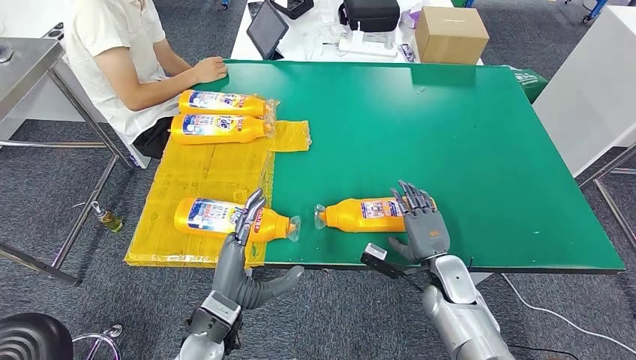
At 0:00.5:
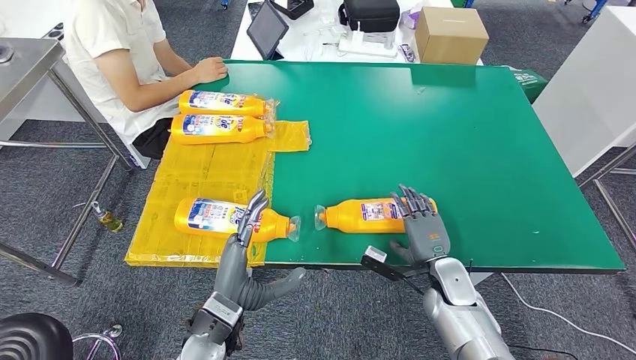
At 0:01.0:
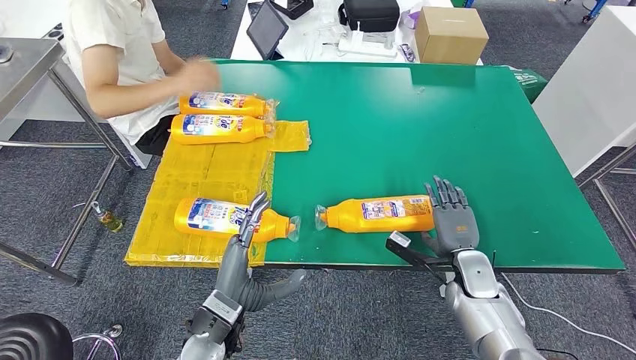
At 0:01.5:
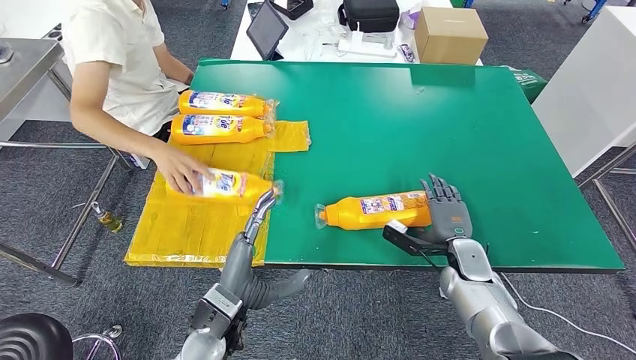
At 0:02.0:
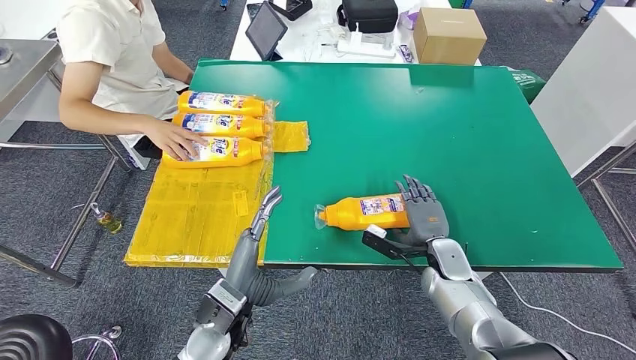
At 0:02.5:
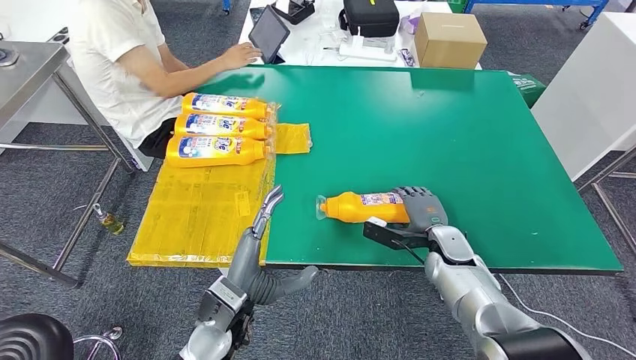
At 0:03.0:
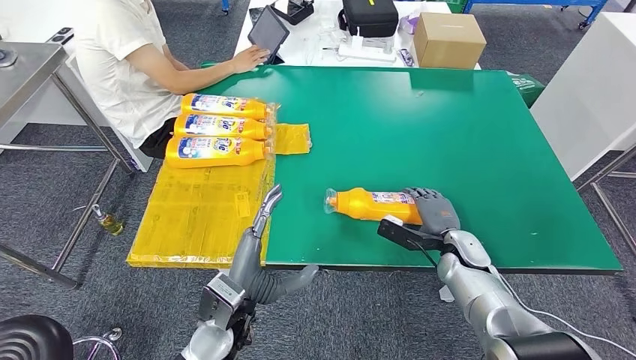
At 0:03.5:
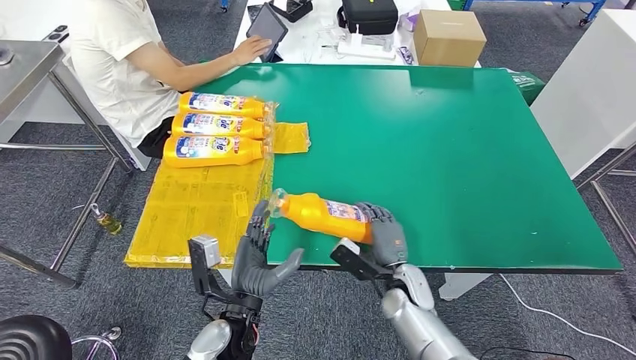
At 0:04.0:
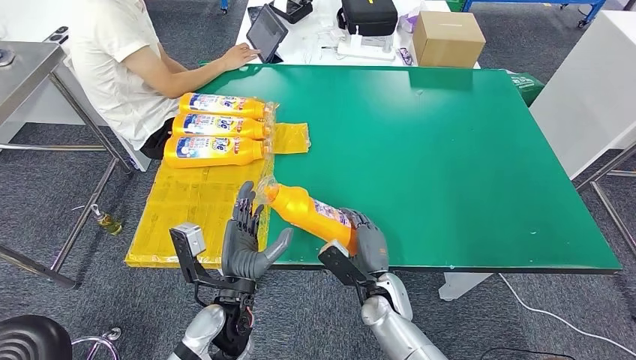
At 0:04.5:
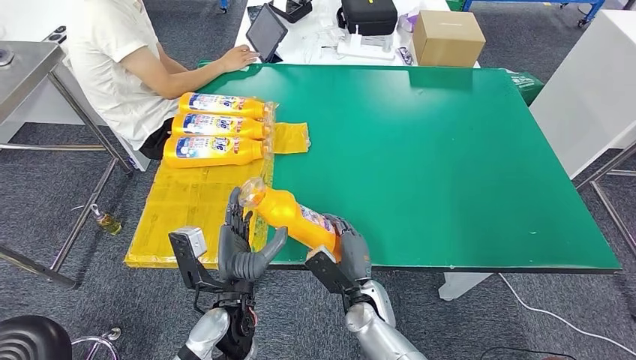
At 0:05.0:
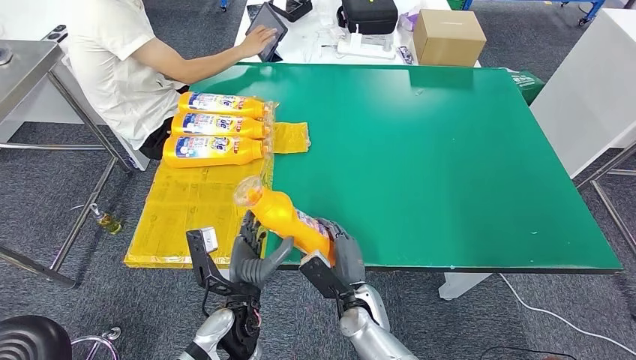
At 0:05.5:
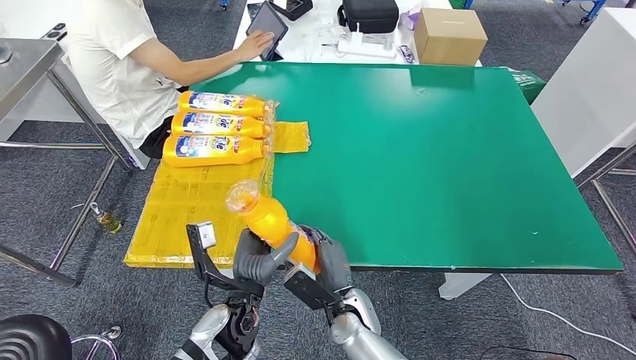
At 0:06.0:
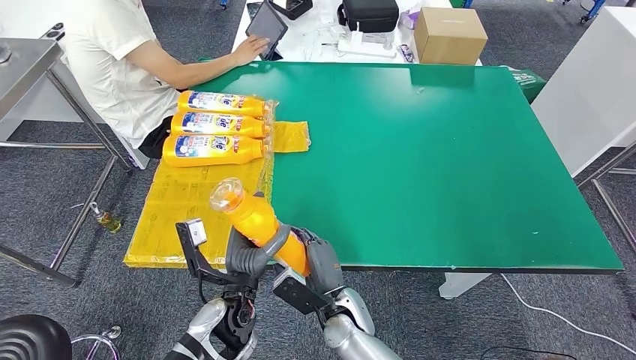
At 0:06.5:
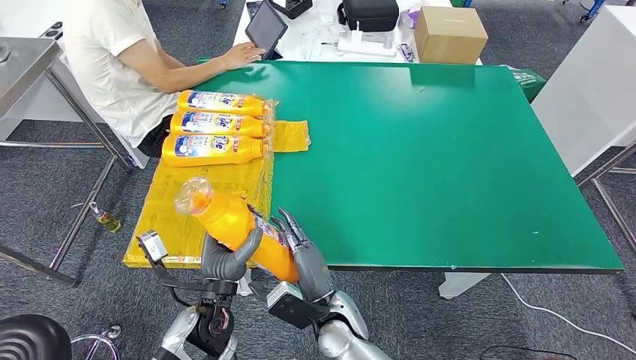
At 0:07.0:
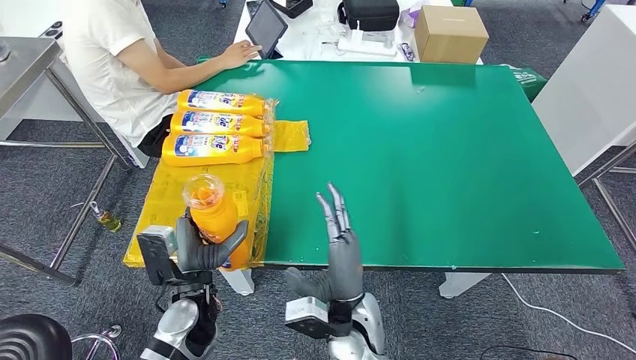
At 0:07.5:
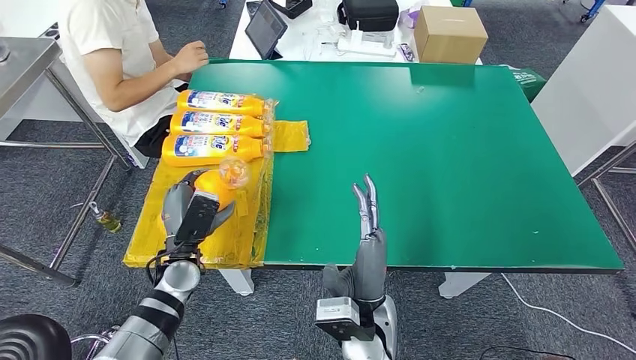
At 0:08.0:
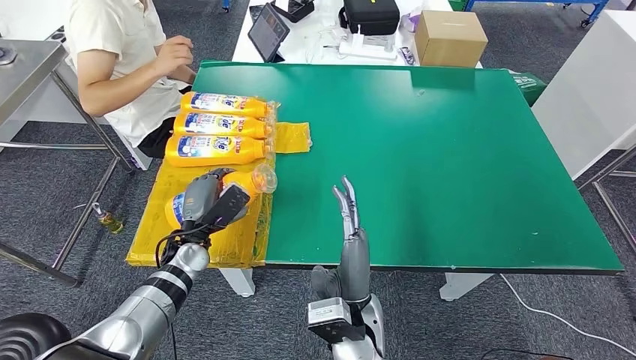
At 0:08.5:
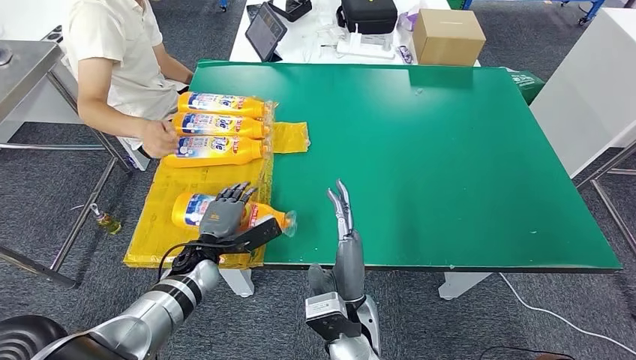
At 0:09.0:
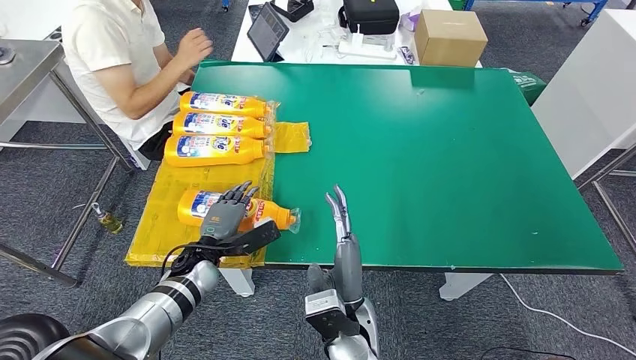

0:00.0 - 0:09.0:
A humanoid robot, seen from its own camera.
Step, 0:00.0 - 0:05.5: Pick up the fast-moving consumer goods bottle from the table.
Step, 0:06.5 - 0:09.0: Flip the fast-moving consumer goods bottle to the front side.
0:00.0 - 0:02.0: There are only small adjustments of the hands.

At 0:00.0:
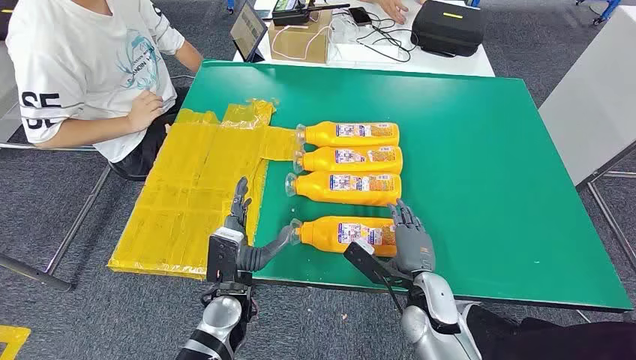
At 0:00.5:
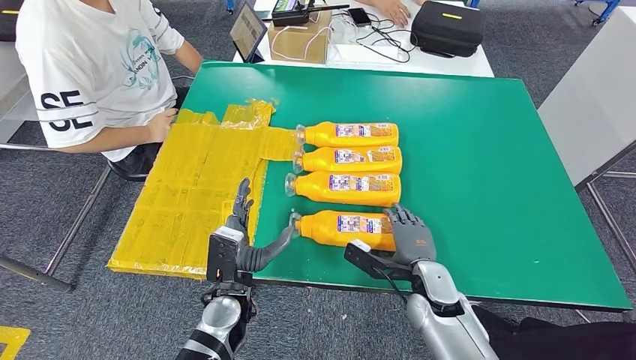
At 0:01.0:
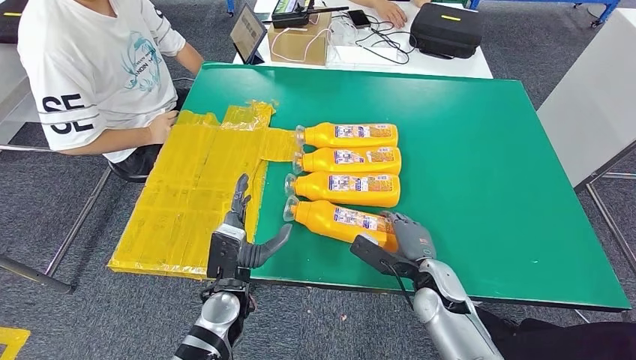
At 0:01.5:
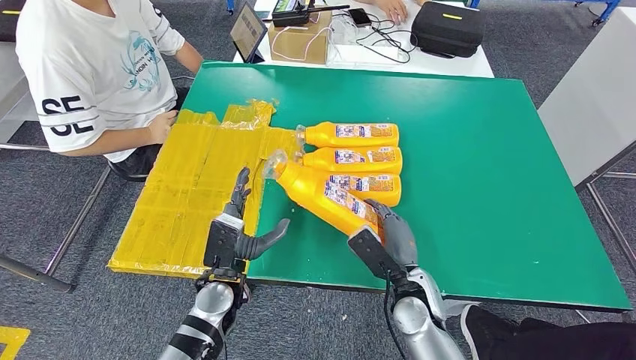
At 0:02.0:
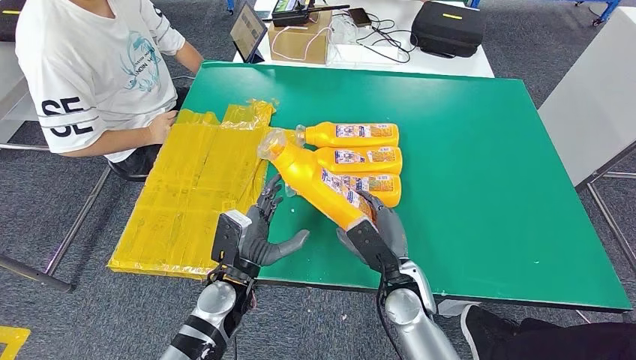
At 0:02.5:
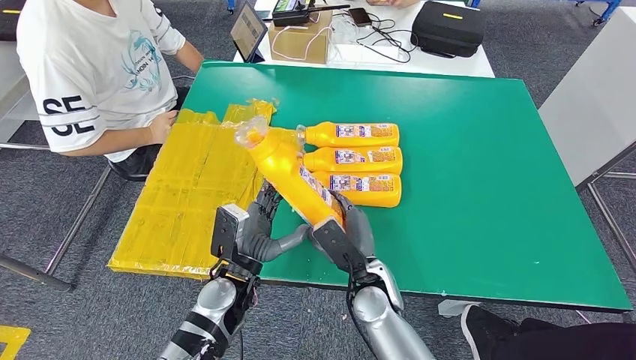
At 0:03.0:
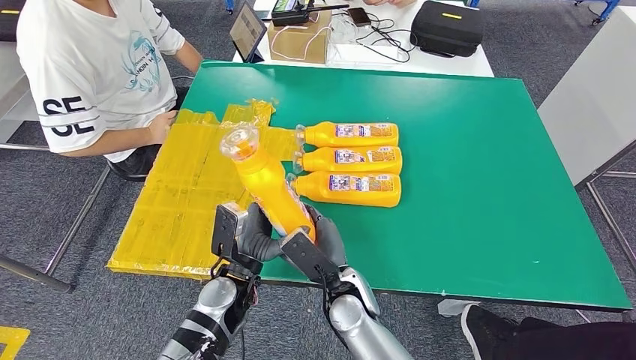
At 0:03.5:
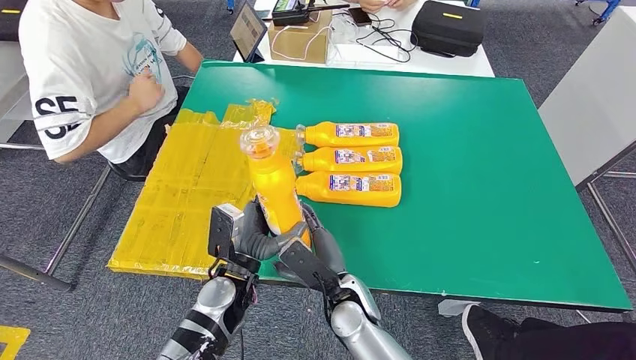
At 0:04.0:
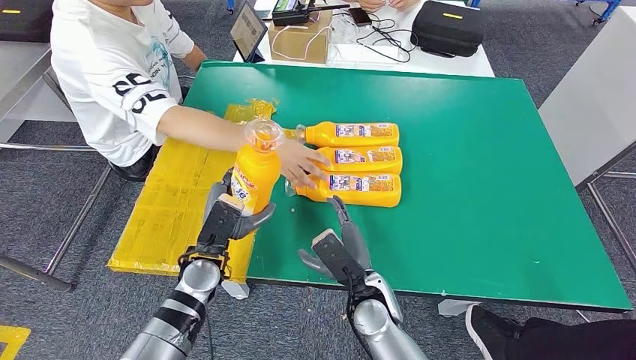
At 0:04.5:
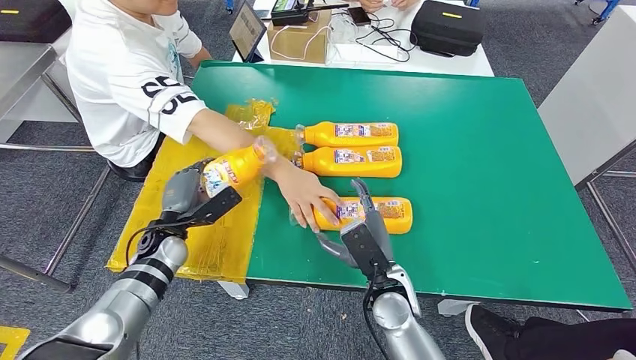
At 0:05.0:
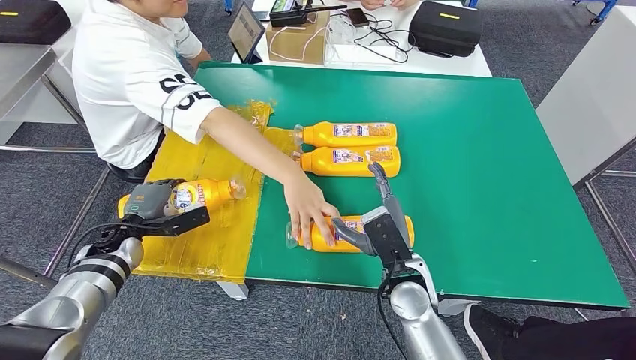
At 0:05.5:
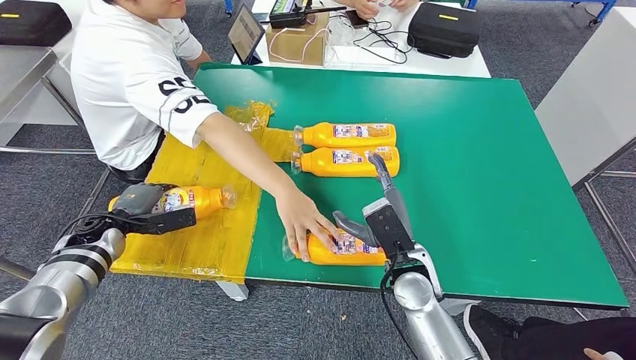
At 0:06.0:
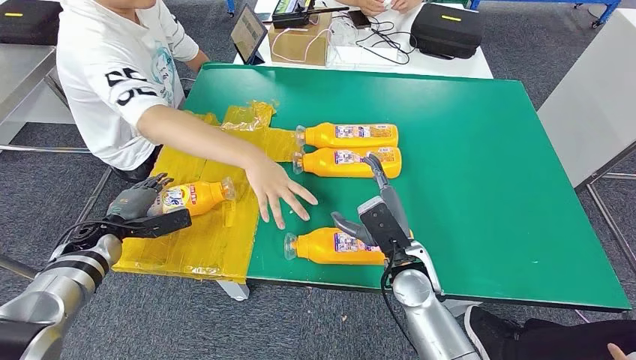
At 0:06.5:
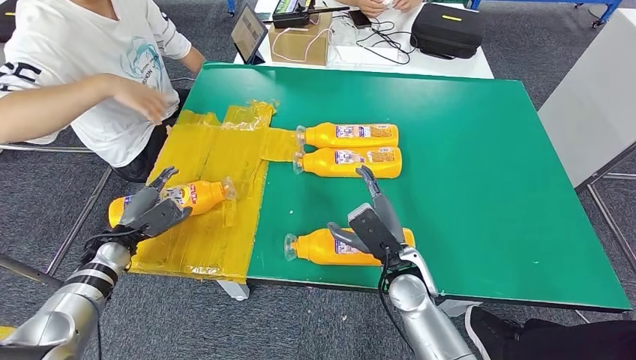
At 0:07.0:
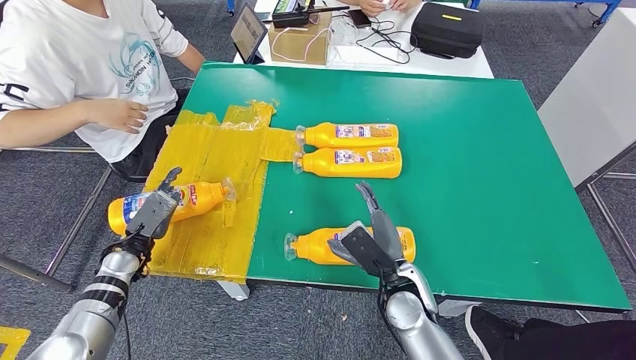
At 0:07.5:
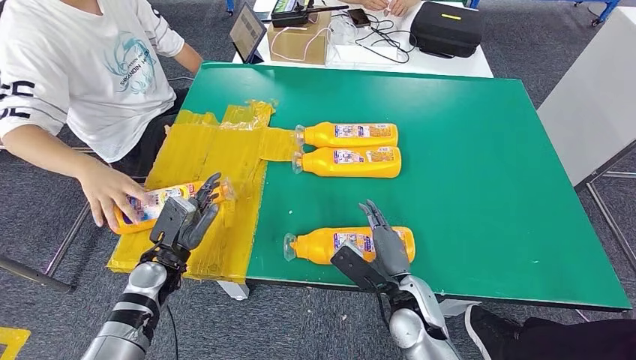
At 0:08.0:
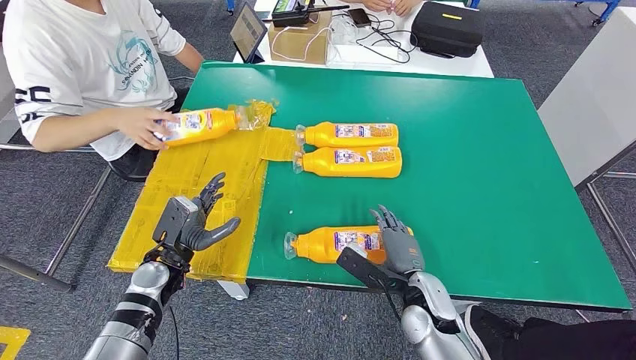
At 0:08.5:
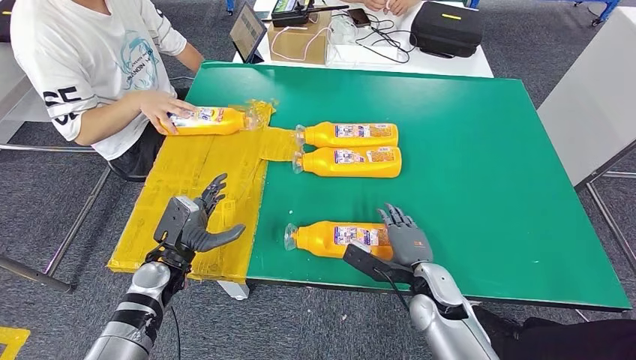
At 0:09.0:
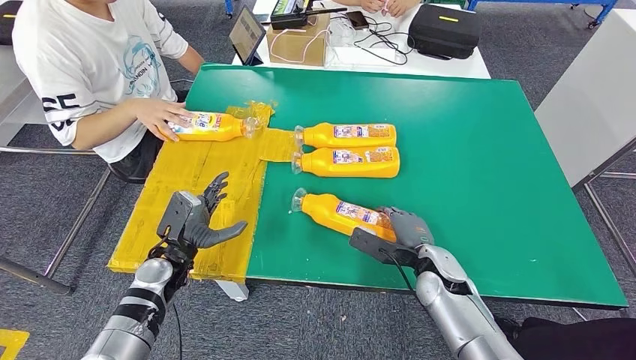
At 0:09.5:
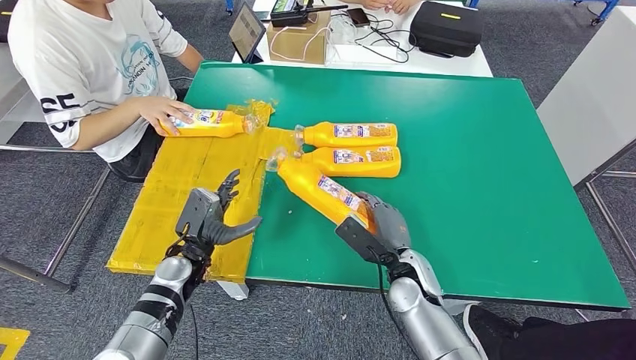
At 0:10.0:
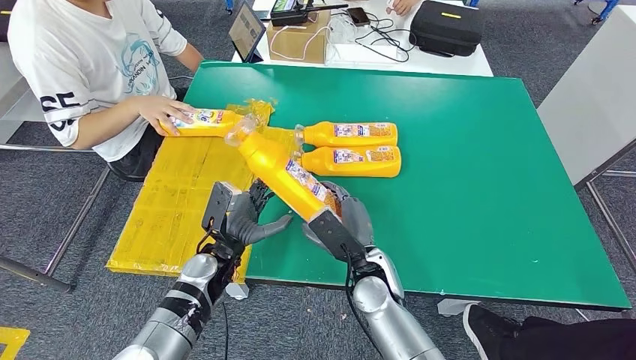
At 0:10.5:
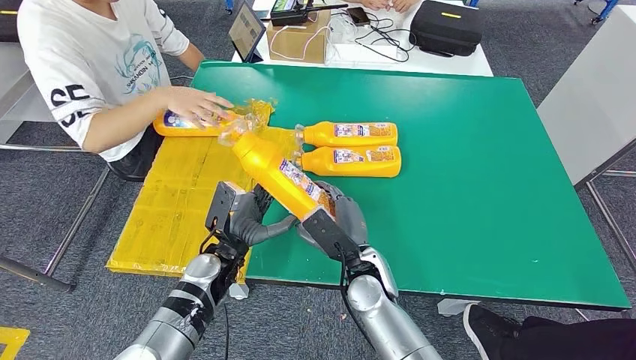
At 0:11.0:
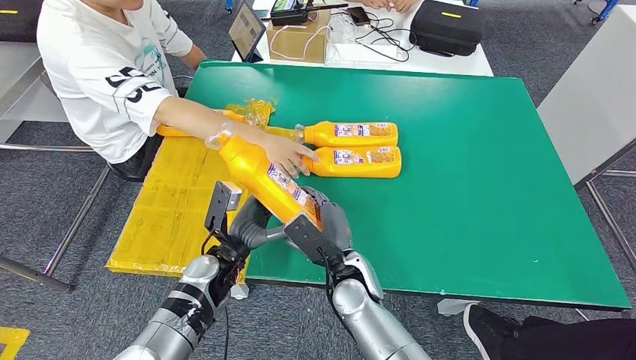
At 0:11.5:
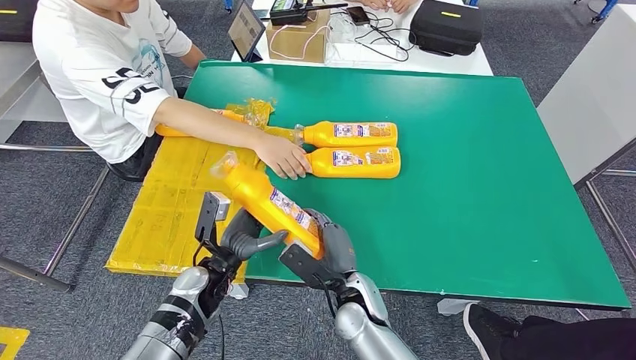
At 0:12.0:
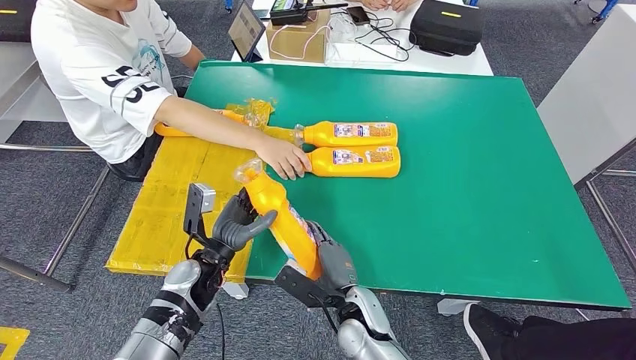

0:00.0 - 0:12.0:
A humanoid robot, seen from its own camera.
Step, 0:00.0 - 0:02.0: Take the fast-moving consumer goods bottle from the table.
Step, 0:03.5 - 0:06.5: Flip the fast-moving consumer goods bottle to the front side.
Step, 0:09.0 - 0:10.5: Pick up the fast-moving consumer goods bottle from the table.
